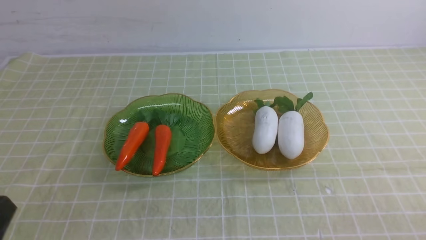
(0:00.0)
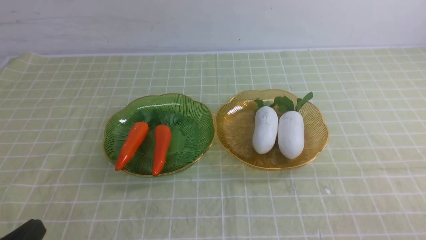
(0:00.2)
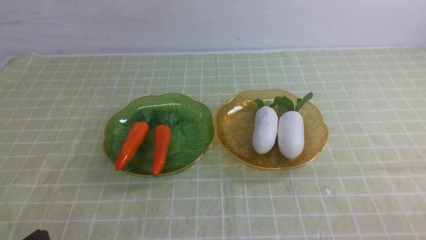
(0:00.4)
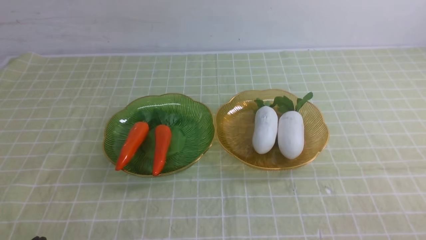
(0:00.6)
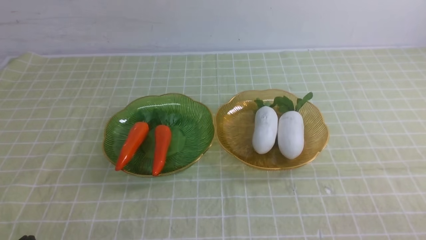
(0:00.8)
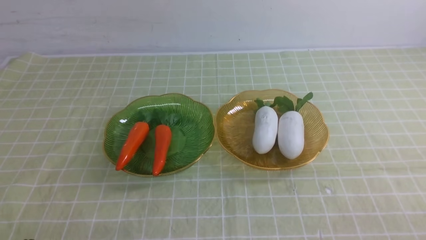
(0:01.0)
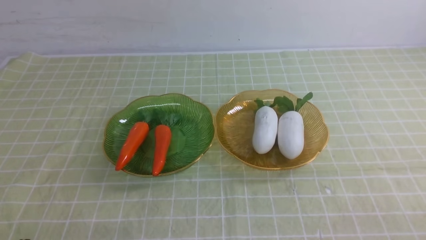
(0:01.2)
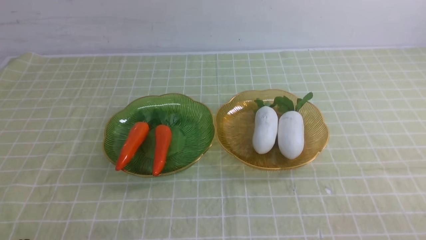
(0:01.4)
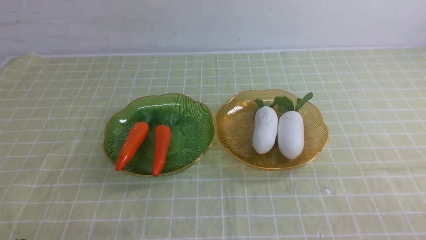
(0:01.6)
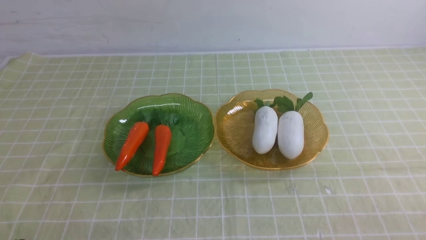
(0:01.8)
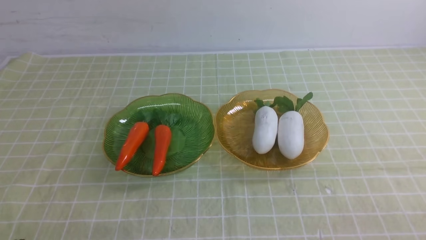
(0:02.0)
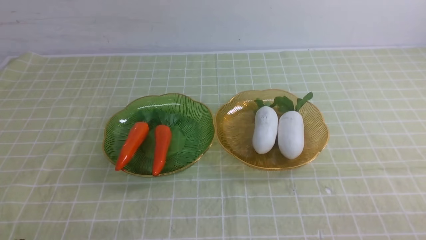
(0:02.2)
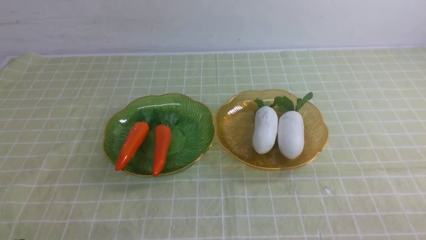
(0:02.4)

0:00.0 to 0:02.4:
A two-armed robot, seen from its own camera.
0:01.2 to 0:02.4: Both grippers stay put.
